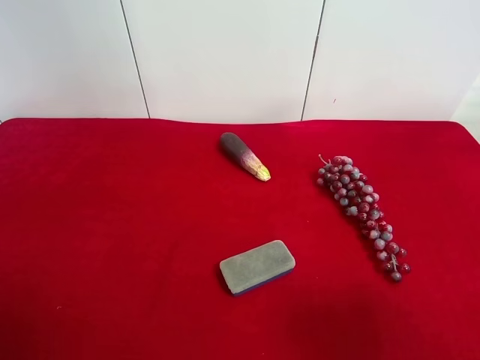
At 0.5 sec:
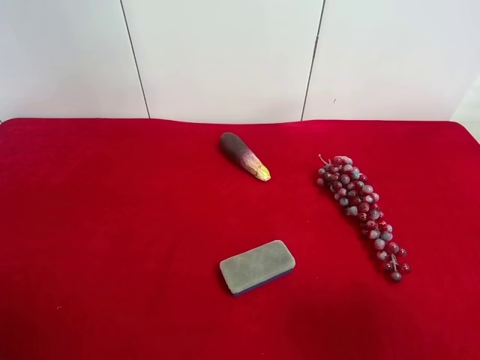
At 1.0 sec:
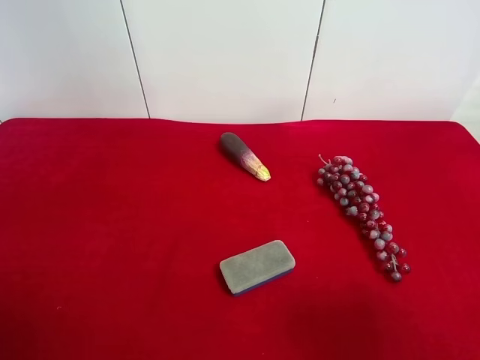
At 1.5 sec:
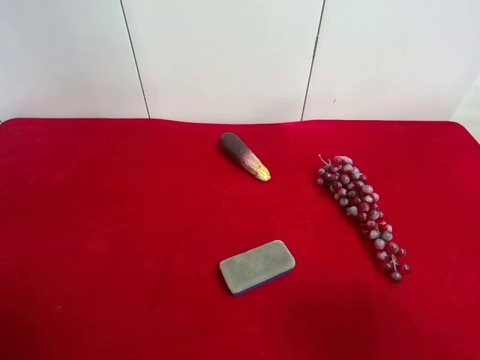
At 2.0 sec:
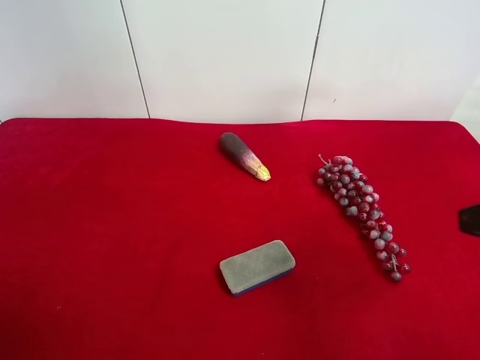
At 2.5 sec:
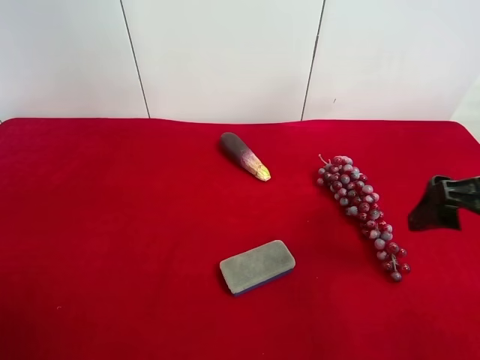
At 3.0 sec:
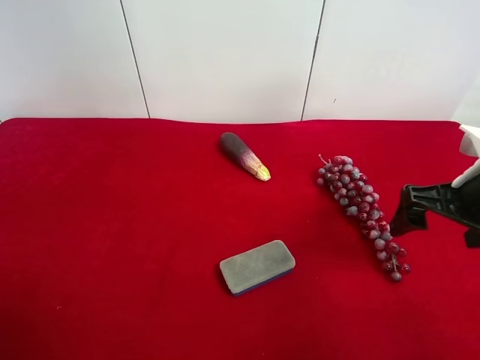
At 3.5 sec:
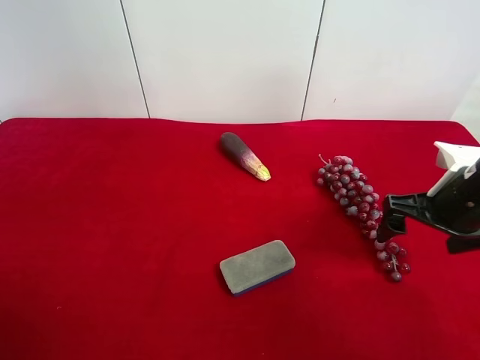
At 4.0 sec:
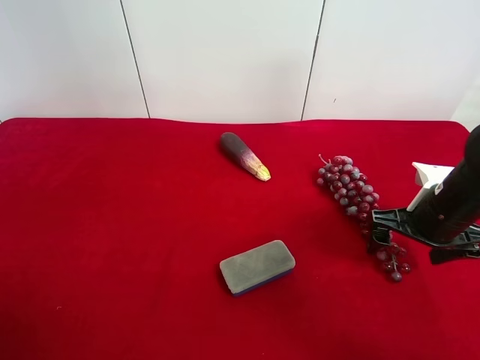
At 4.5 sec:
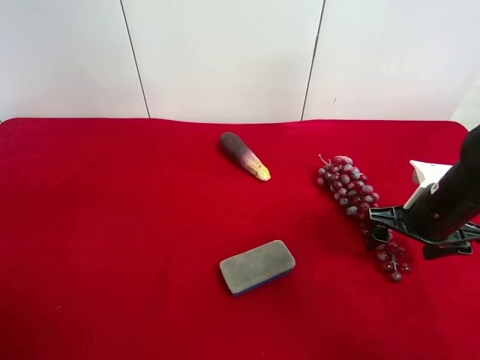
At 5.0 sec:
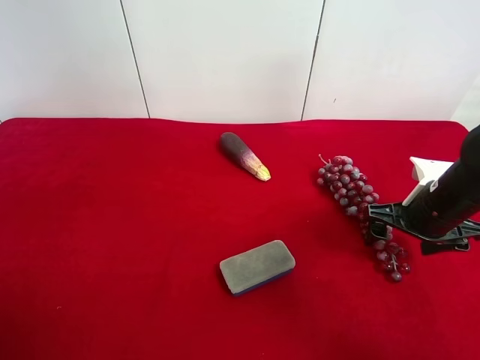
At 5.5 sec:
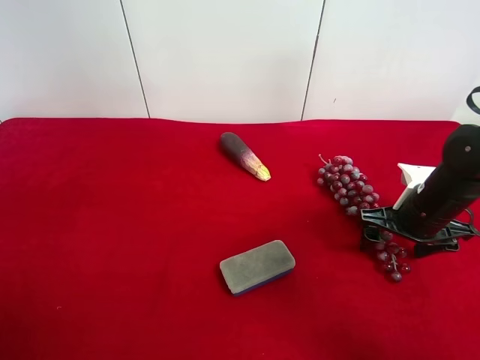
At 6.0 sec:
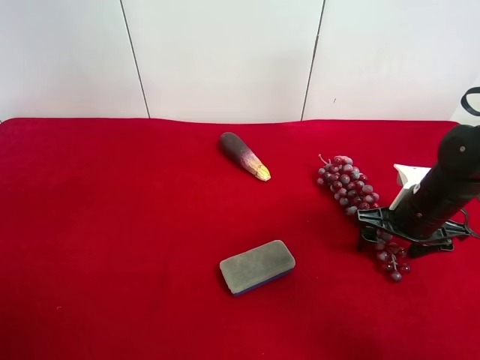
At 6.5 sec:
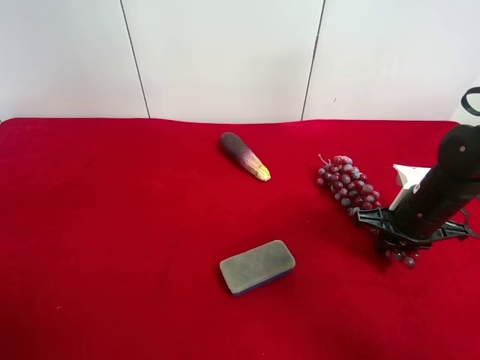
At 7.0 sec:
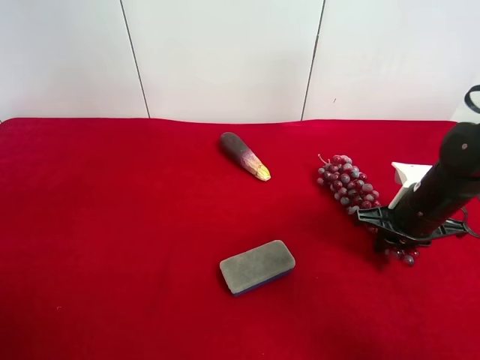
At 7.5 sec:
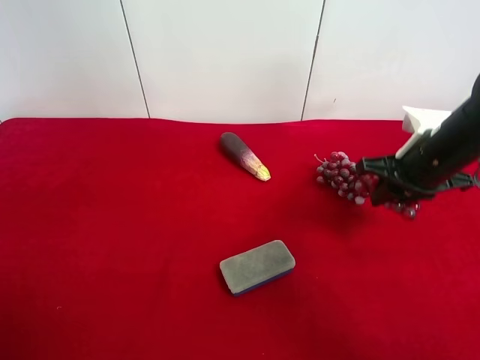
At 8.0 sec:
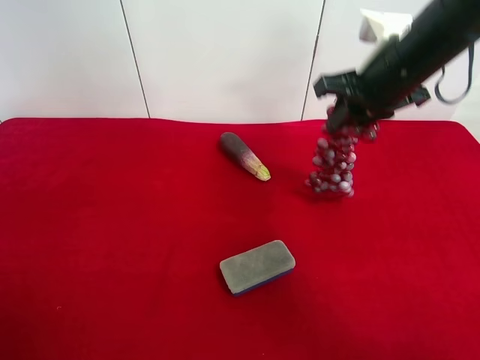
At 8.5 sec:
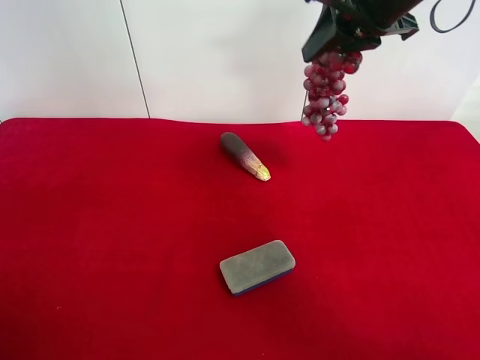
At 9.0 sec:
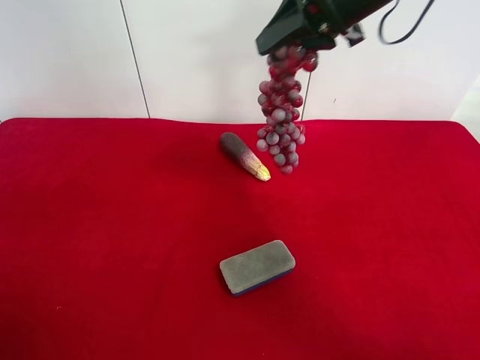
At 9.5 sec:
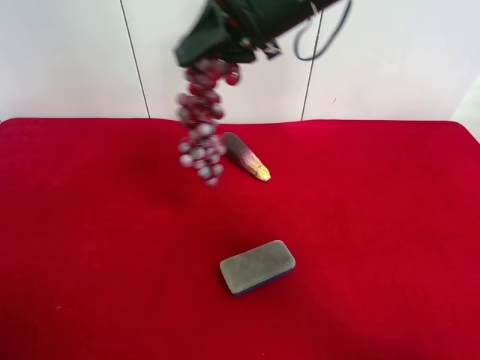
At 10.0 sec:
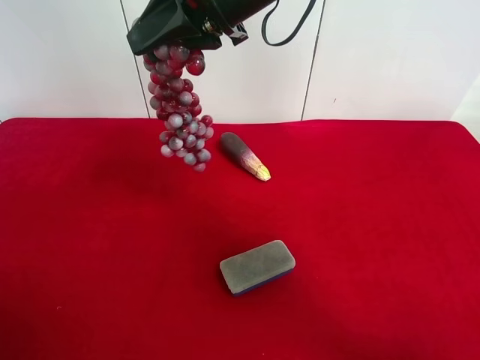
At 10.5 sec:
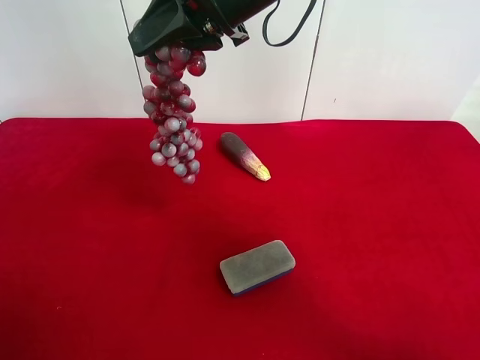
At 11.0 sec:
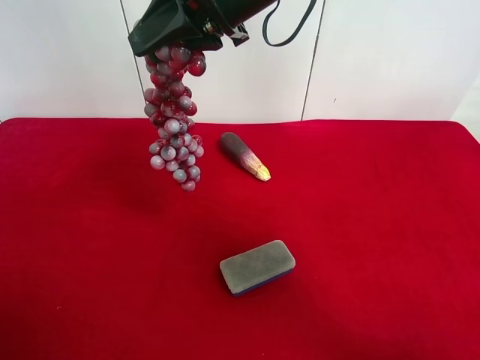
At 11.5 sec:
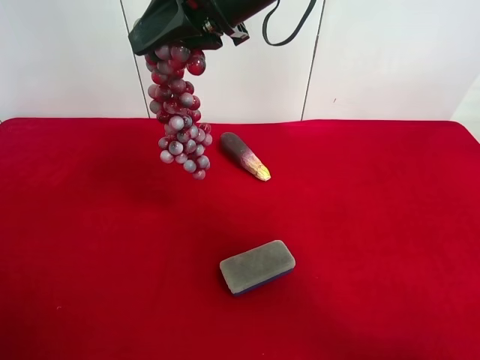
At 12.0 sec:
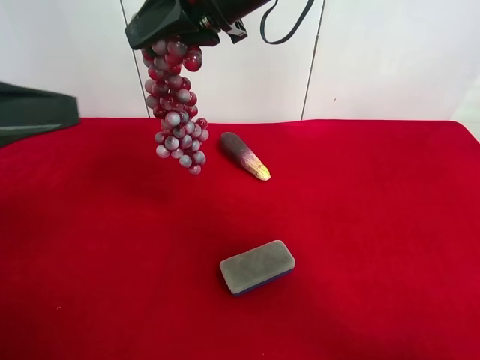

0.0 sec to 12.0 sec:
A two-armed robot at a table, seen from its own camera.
Task of the whole recording: use the right gripper to pick up the item and transfer it from the right gripper to the left gripper.
Step, 0.0 sec to 6.0 sec: Use the right gripper to grab the grape on the right side of the table.
2.0 sec to 4.0 sec: The right gripper heads downward and forward, covering roughly 20 cm.
4.0 sec to 6.0 sec: The grippers stay close to where they were, moving slightly.
6.0 sec to 8.0 sec: The right gripper shifts some 20 cm upward and to the left, and closes up.
8.0 sec to 10.0 sec: The right gripper is displaced to the left and upward by some 20 cm.
10.0 sec to 12.0 sec: The left gripper shifts some 15 cm forward.

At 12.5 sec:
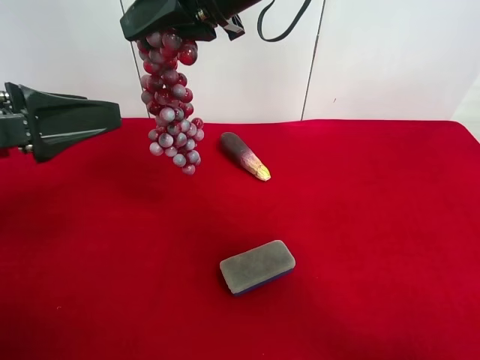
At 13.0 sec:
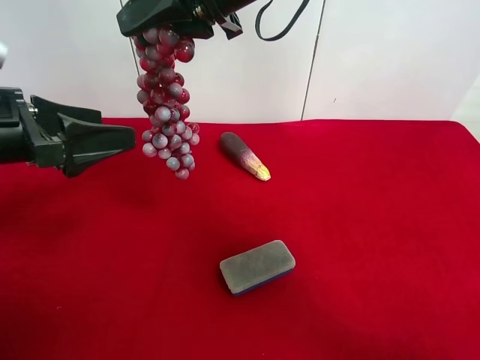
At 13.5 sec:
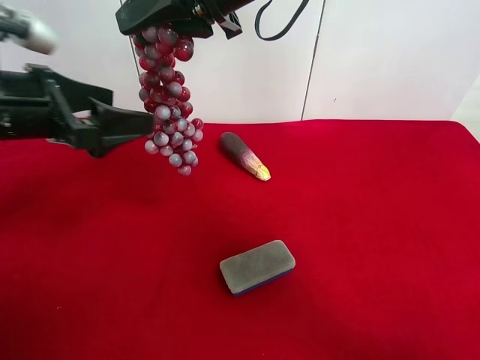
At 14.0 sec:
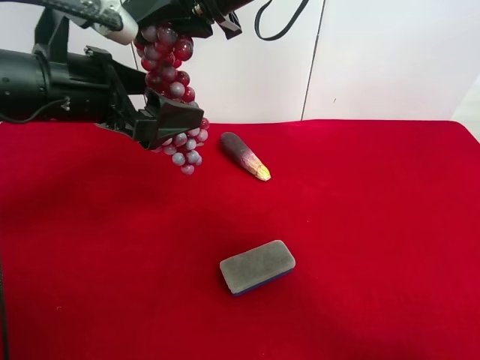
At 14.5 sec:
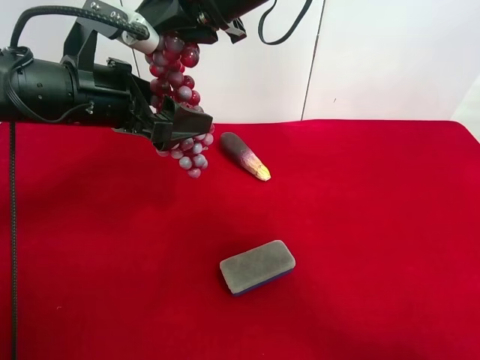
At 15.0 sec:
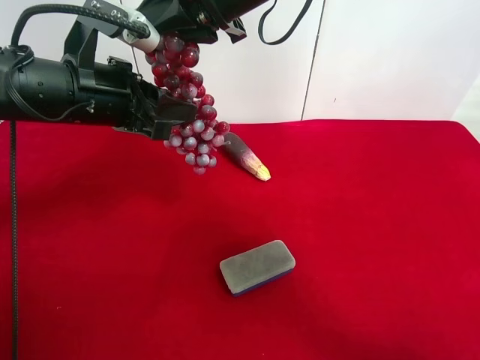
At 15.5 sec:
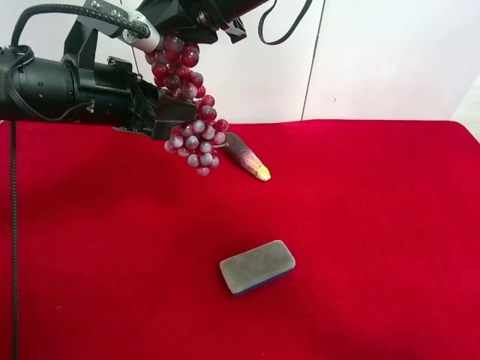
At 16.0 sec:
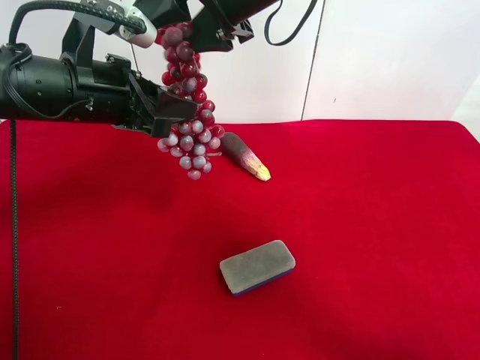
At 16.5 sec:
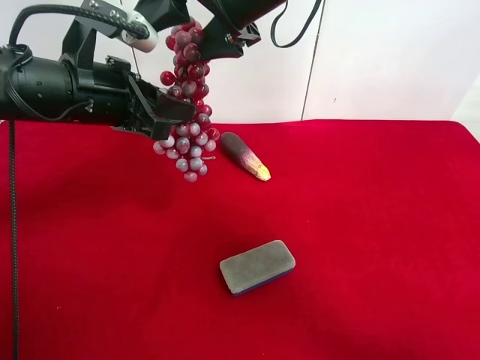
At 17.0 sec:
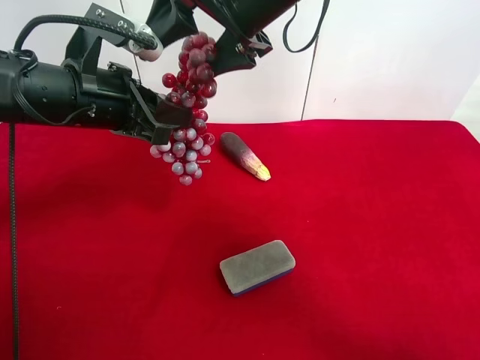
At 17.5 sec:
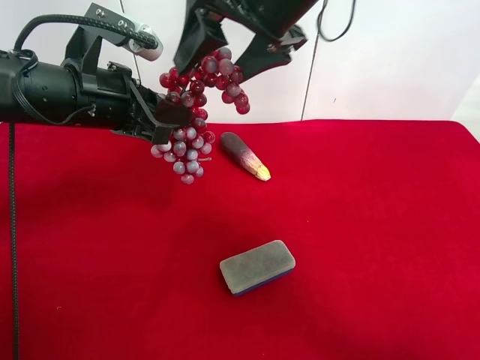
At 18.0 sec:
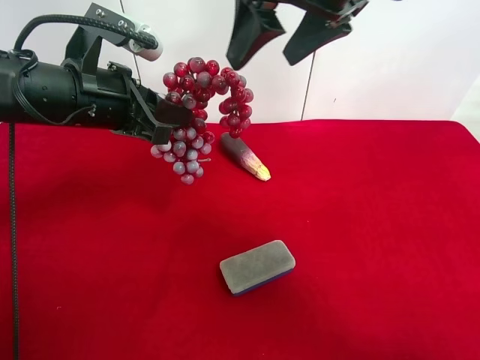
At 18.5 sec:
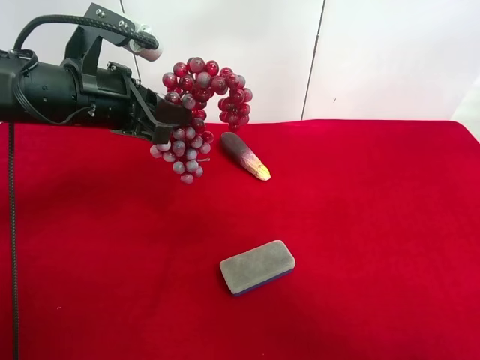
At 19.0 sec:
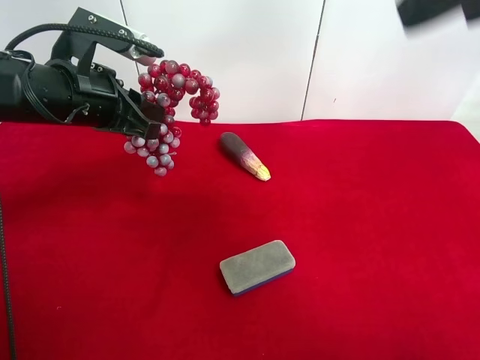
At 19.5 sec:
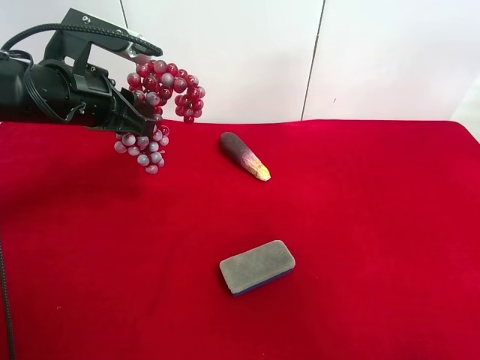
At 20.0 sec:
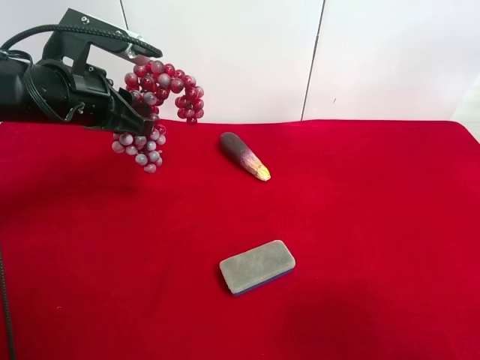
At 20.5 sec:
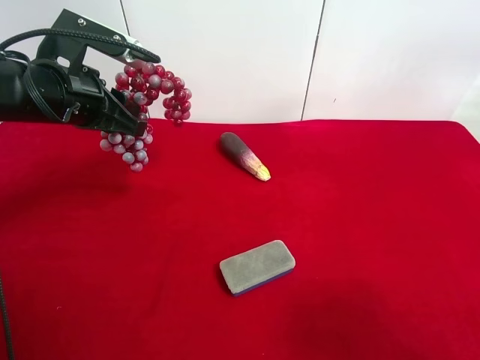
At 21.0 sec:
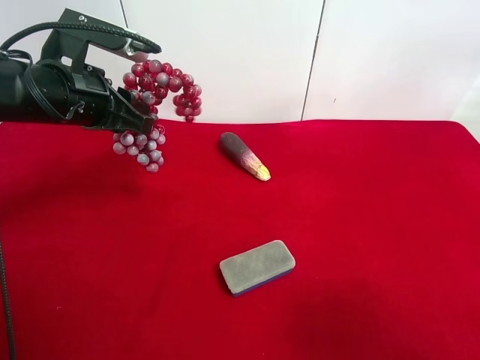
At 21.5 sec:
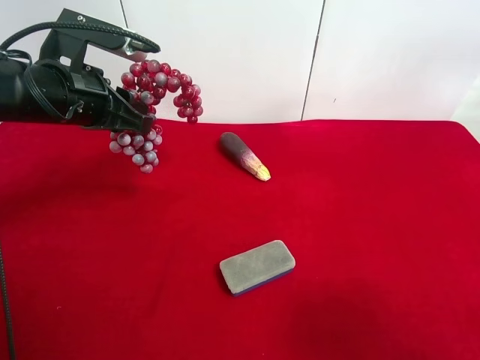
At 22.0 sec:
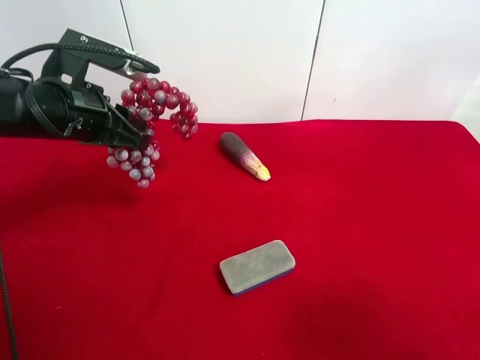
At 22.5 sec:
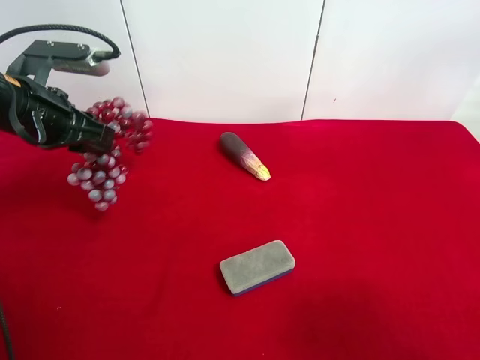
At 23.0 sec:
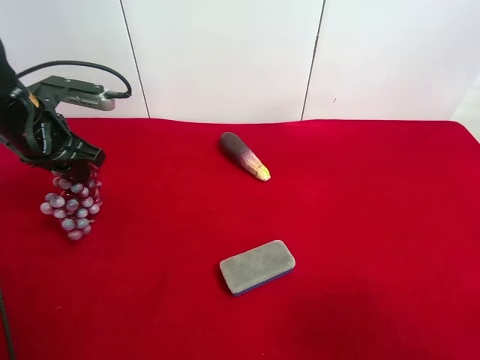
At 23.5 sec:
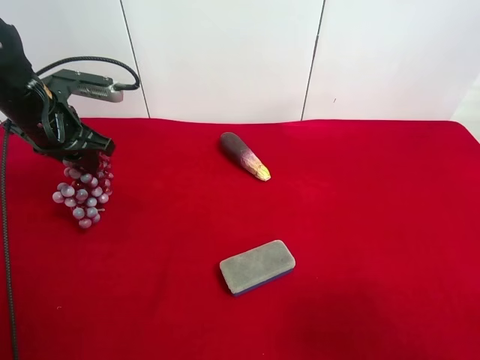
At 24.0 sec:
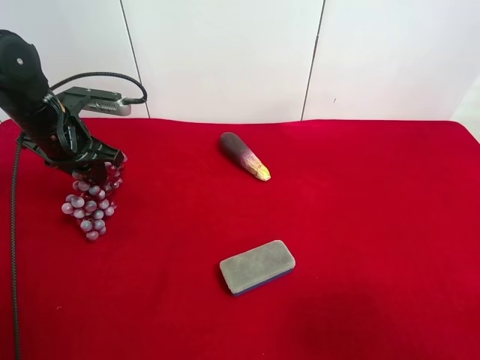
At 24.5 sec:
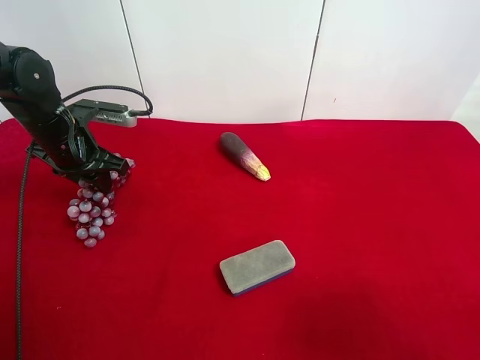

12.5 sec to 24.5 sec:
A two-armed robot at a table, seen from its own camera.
Task of the whole recording: use the right gripper to pick up the item and transfer it from the right gripper to the left gripper.
Step, 12.5 sec to 17.0 sec: Pass the grape to the left gripper.
12.5 sec to 14.5 sec: The left gripper moves to the right and forward, some 10 cm.
14.5 sec to 16.5 sec: The right gripper opens up, while the left gripper closes its fingers.
16.5 sec to 18.5 sec: The right gripper goes some 20 cm to the right, upward and backward.
18.5 sec to 20.5 sec: The right gripper moves backward, downward and to the right, roughly 30 cm.
22.5 sec to 24.5 sec: The left gripper travels downward and forward by some 10 cm.

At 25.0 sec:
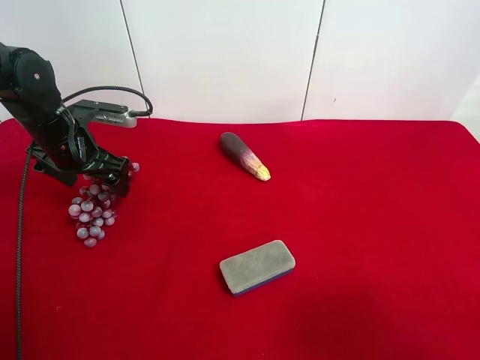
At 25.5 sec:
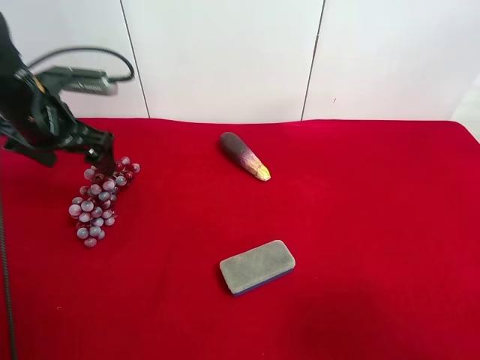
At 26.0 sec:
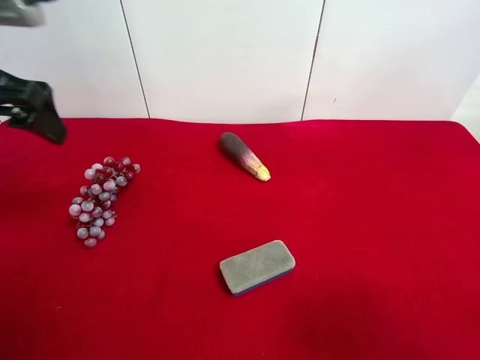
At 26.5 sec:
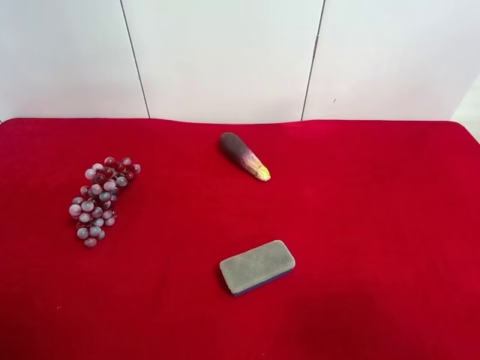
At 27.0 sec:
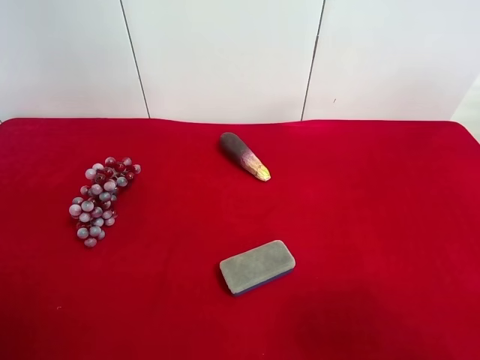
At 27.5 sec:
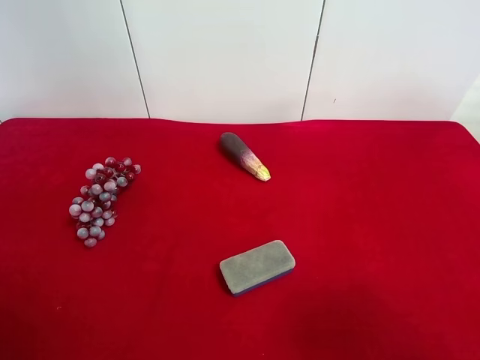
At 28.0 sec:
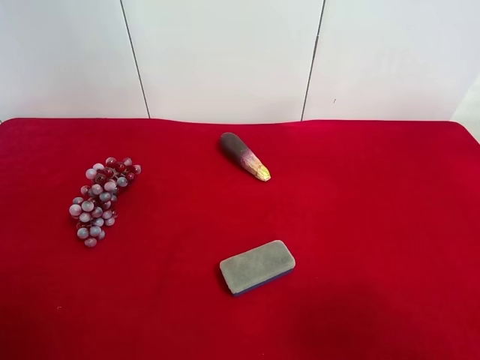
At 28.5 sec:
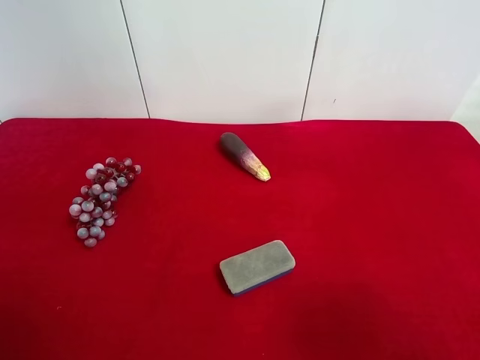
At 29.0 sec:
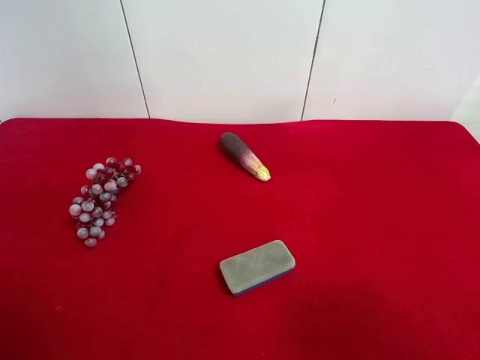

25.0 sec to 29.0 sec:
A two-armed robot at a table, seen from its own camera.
Task of the whole recording: use the right gripper to pick up the item and transfer it from the right gripper to the left gripper.
25.0 sec to 27.0 sec: The left gripper is displaced backward and upward by approximately 30 cm.
